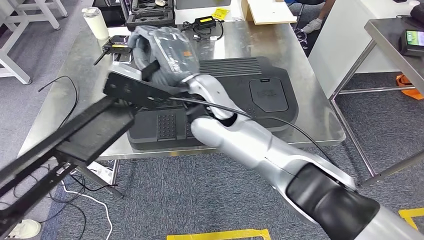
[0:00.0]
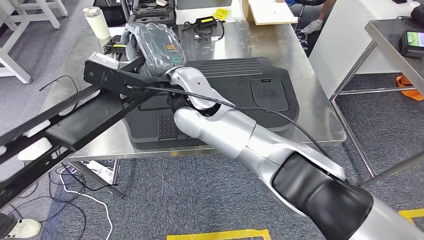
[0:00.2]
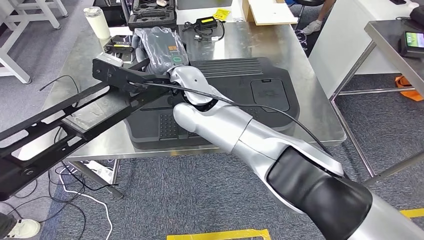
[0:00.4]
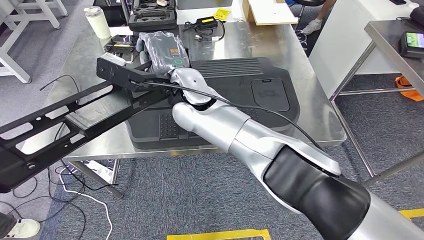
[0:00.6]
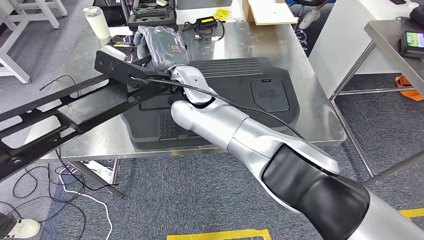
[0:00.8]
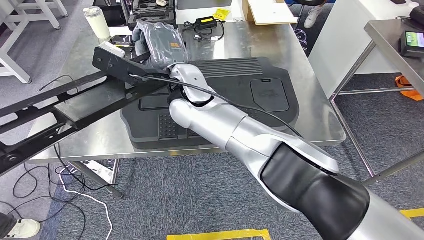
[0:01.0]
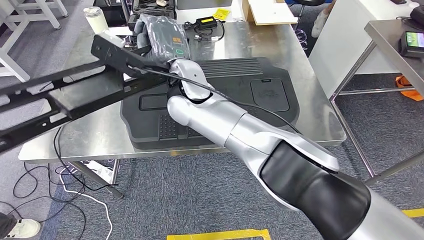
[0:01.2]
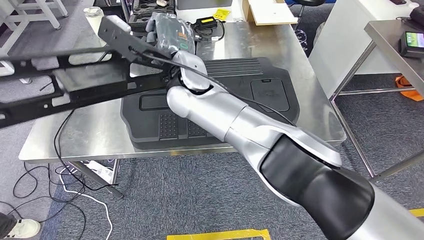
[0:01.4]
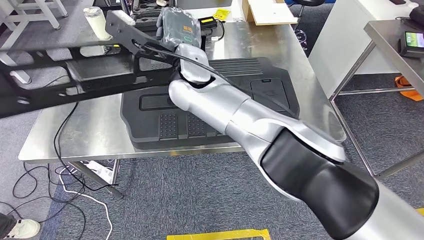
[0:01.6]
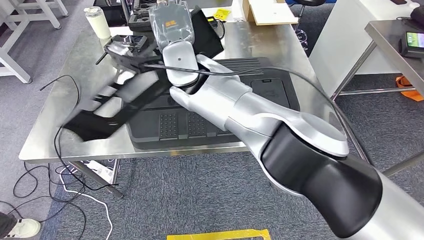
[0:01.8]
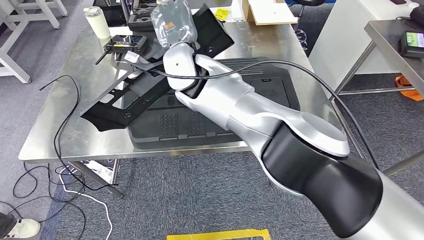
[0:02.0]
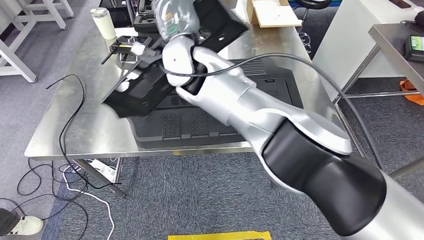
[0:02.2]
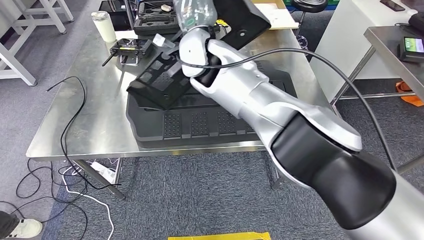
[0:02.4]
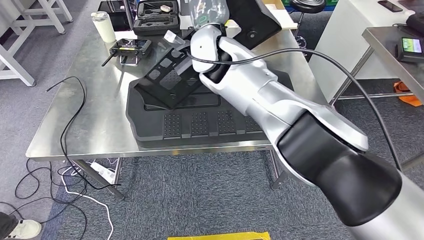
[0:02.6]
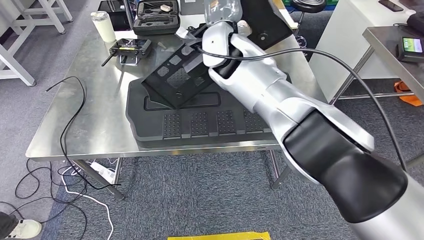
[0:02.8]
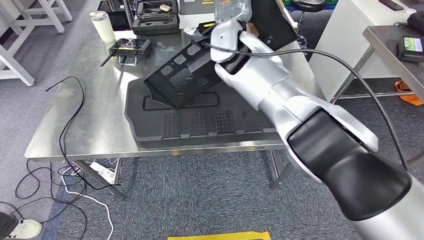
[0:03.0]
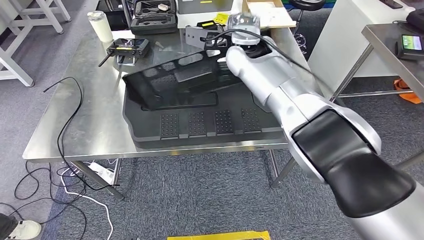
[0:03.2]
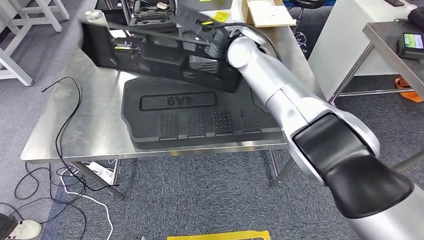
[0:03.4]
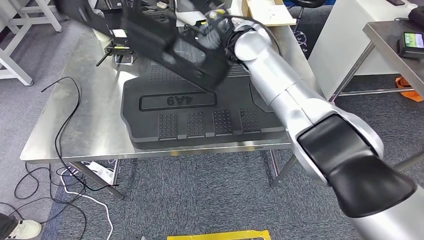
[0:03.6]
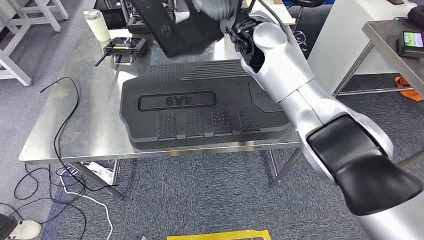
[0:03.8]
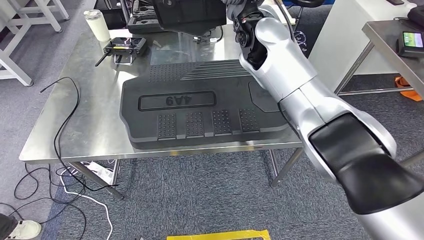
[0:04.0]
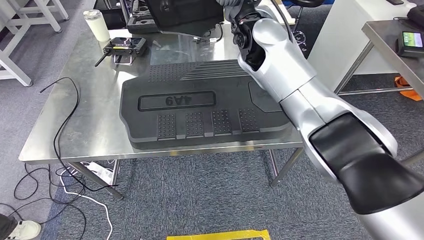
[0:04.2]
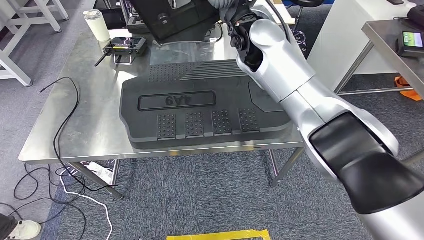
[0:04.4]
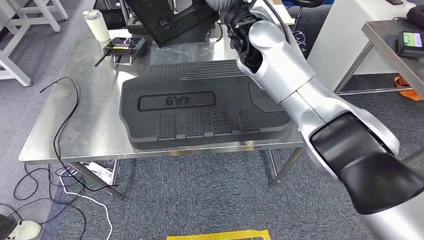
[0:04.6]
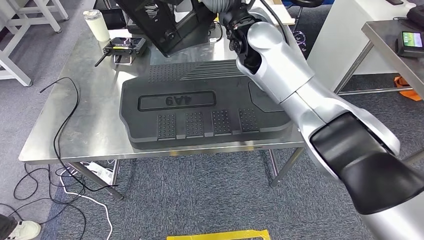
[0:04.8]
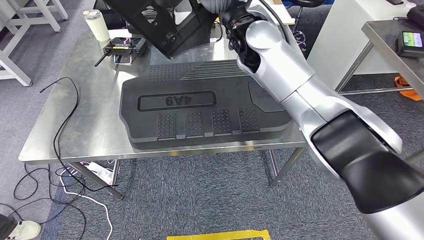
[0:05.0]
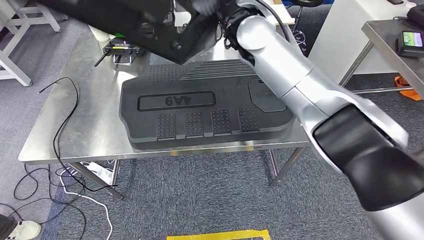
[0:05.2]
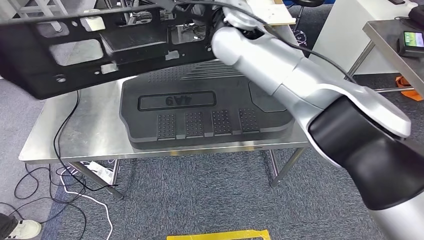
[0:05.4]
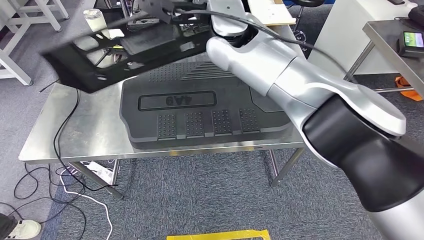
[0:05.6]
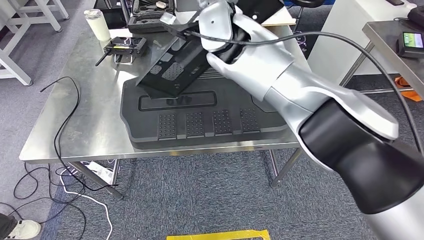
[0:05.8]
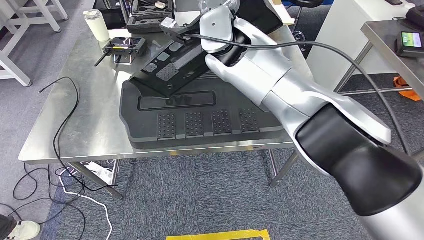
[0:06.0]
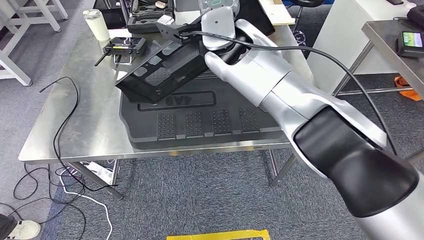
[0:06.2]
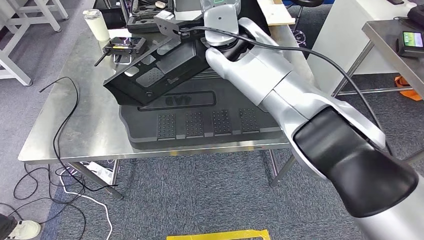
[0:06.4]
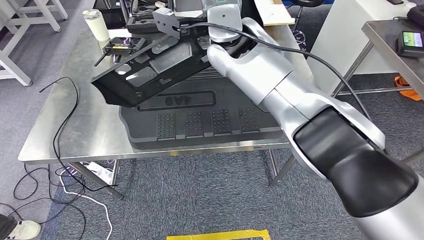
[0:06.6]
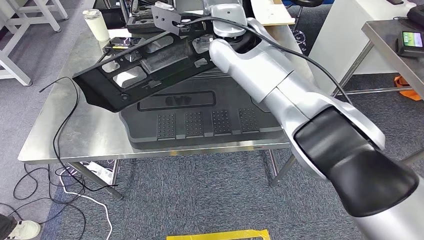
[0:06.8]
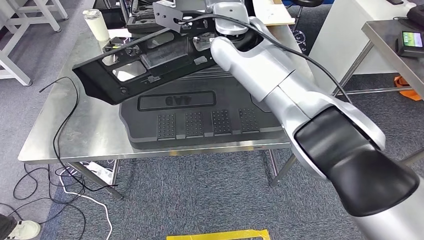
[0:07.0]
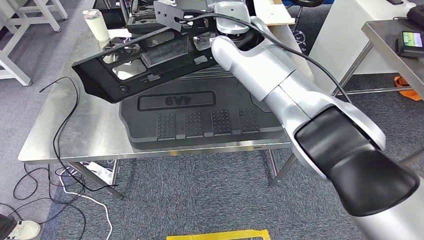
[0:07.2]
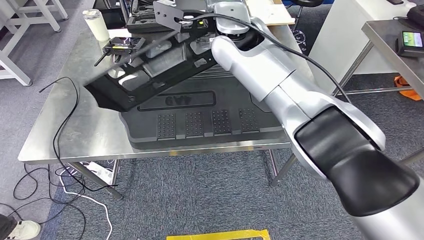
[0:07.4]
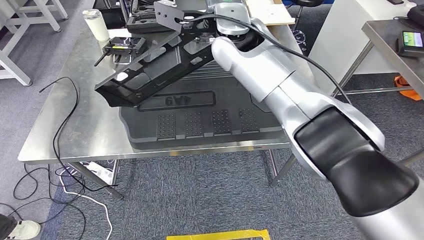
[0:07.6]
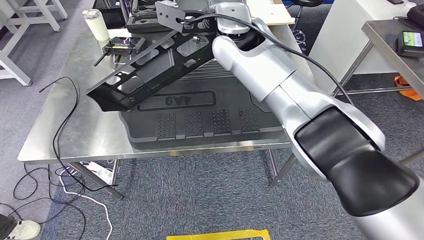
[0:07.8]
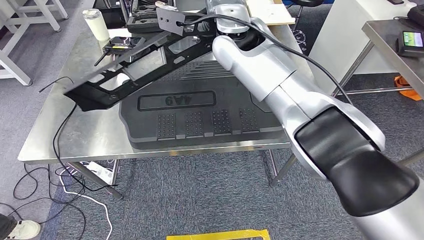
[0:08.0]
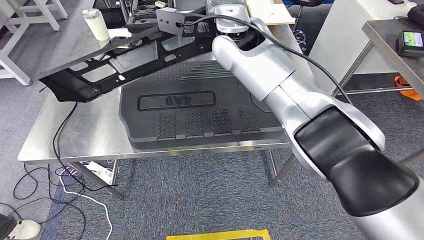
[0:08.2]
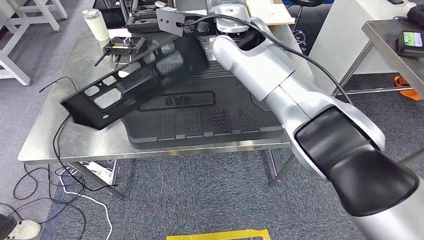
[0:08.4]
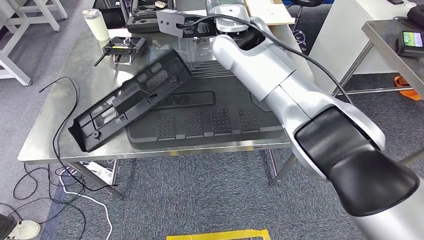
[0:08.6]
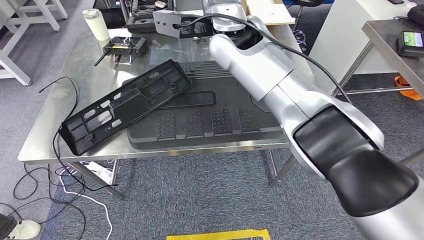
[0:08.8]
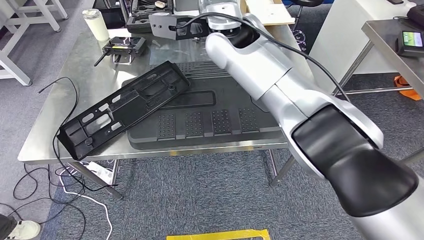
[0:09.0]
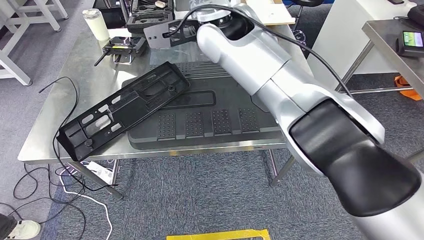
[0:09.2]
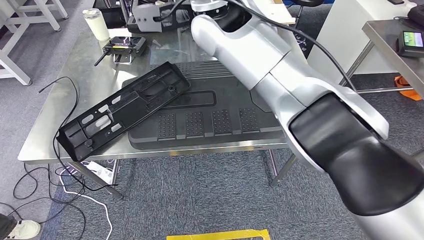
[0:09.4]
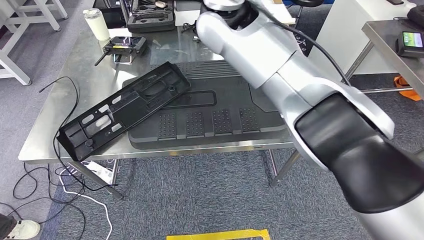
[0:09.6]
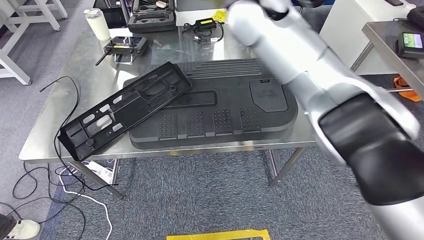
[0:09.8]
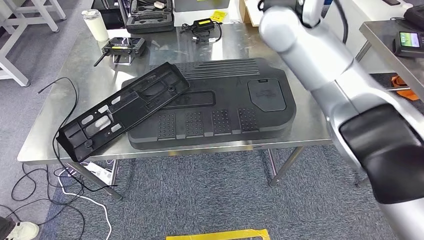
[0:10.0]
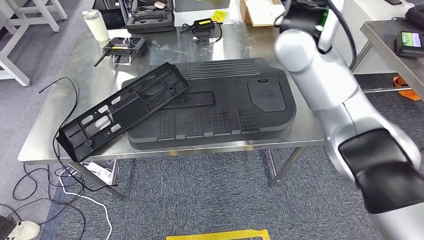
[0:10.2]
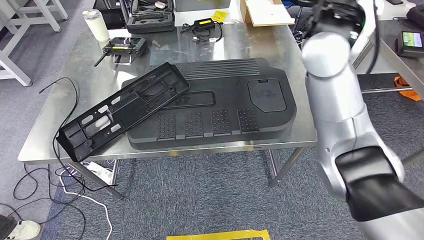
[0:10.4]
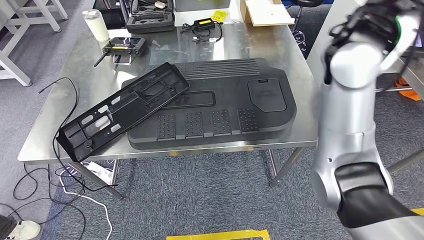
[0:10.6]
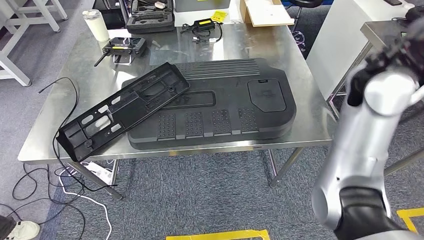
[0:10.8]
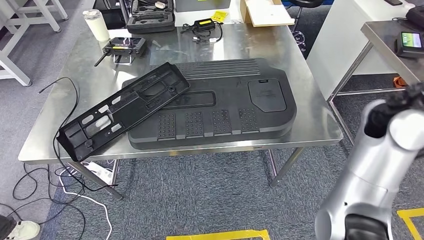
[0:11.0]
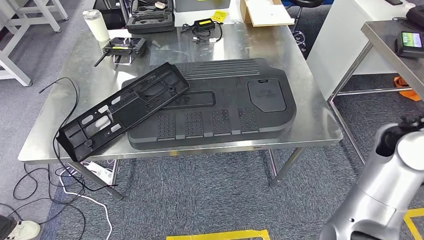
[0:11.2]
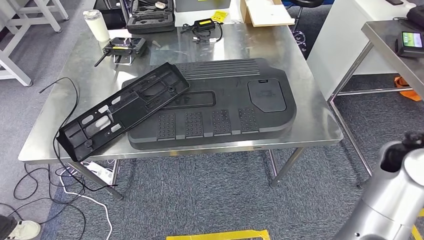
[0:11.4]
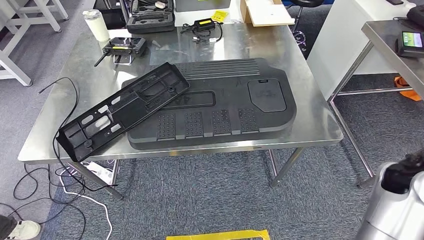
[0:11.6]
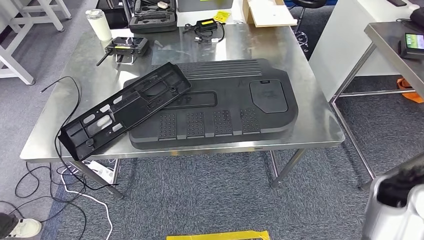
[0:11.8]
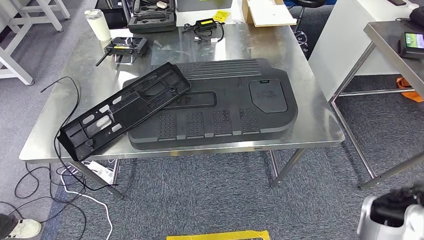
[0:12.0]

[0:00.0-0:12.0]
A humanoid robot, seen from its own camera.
0:04.4 to 0:06.0: The right hand goes roughly 5 cm to the left.
0:07.6 to 0:09.0: The hands stay close to where they were, moving slightly.

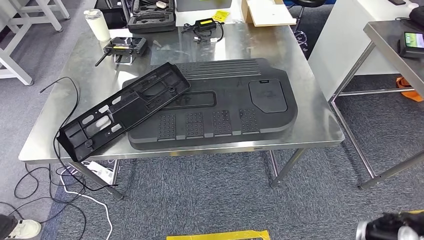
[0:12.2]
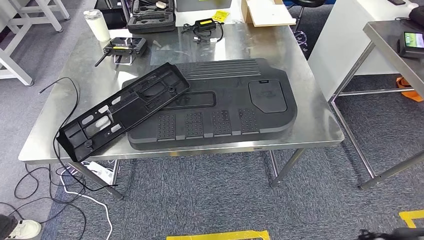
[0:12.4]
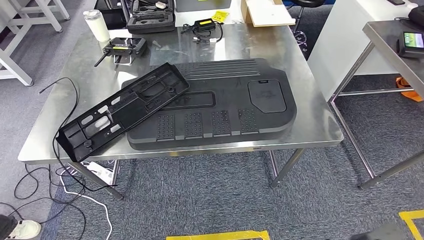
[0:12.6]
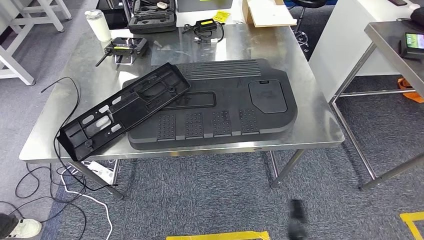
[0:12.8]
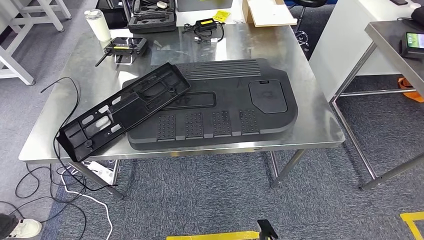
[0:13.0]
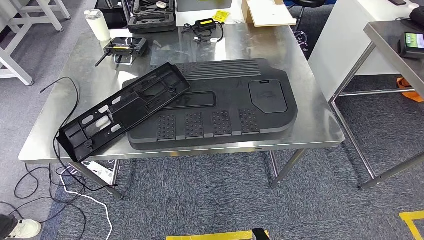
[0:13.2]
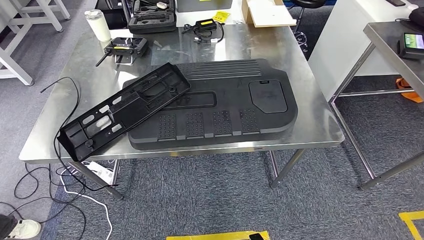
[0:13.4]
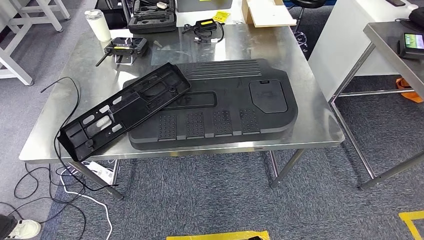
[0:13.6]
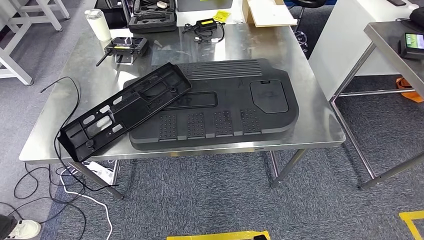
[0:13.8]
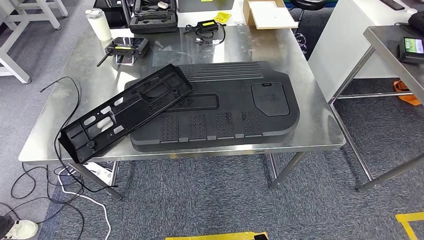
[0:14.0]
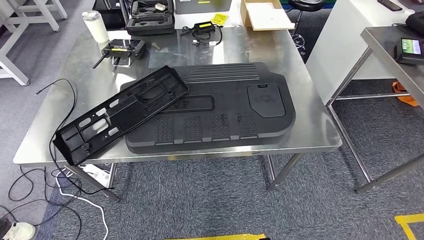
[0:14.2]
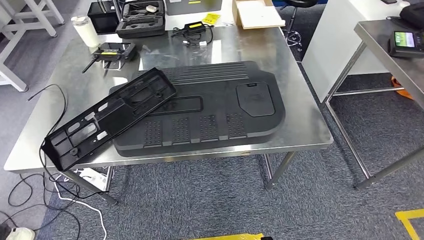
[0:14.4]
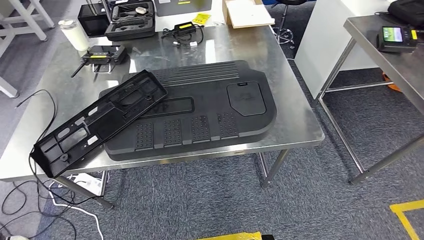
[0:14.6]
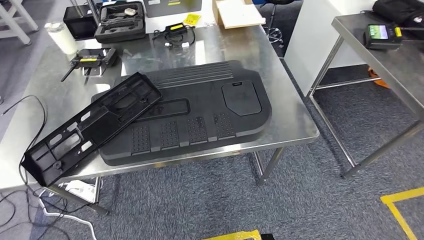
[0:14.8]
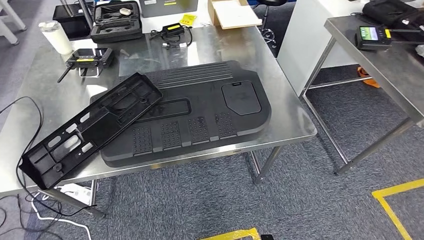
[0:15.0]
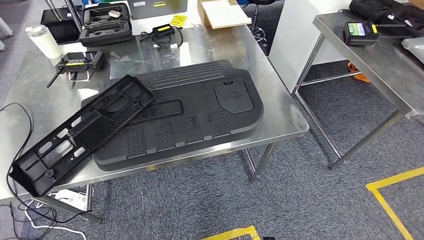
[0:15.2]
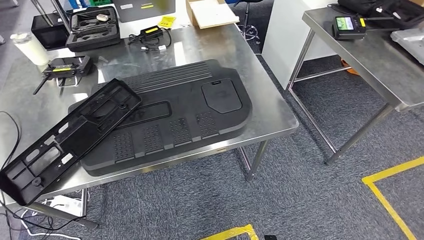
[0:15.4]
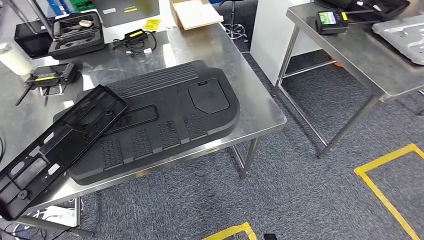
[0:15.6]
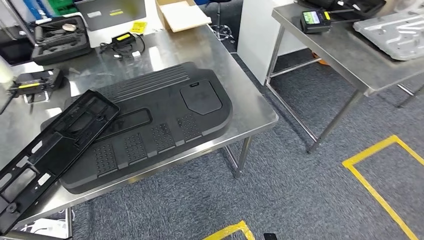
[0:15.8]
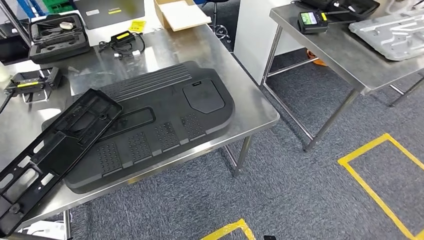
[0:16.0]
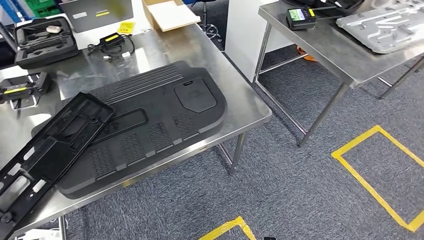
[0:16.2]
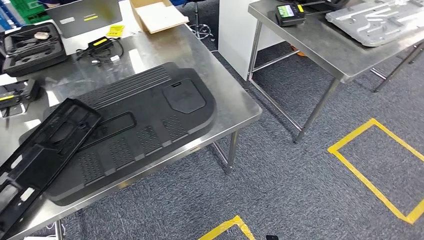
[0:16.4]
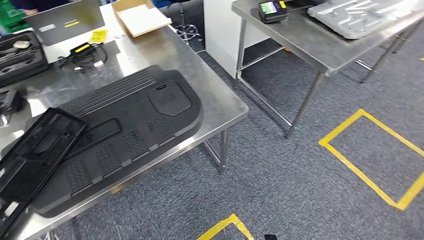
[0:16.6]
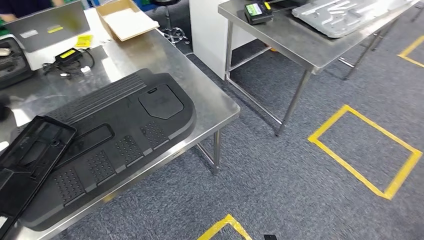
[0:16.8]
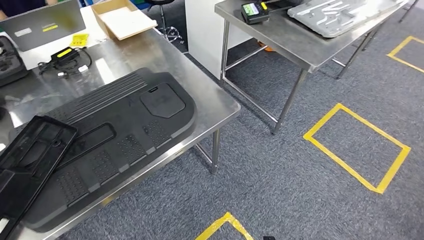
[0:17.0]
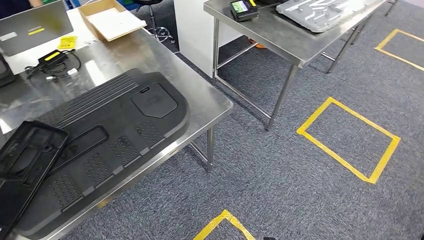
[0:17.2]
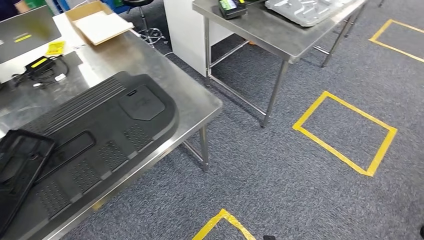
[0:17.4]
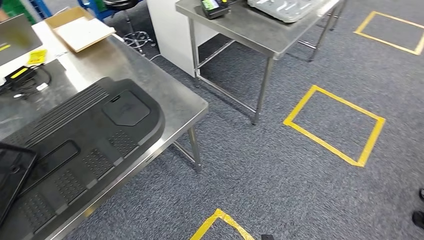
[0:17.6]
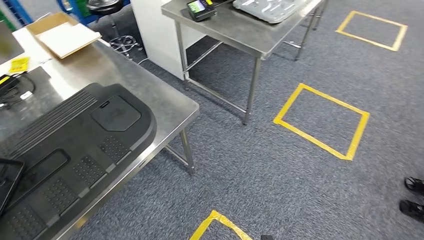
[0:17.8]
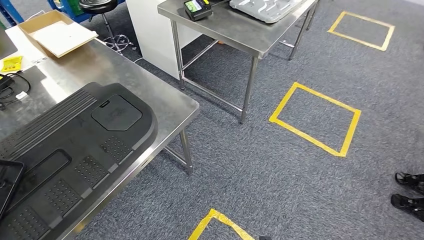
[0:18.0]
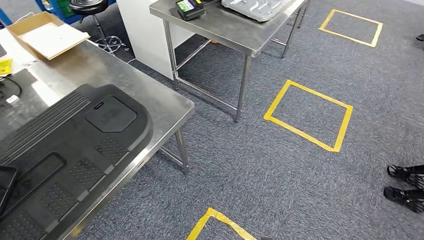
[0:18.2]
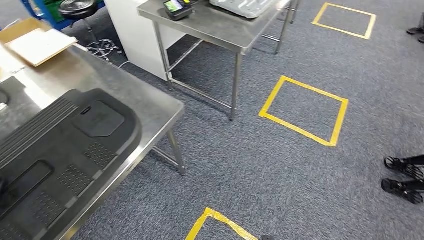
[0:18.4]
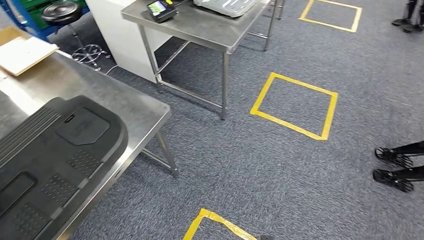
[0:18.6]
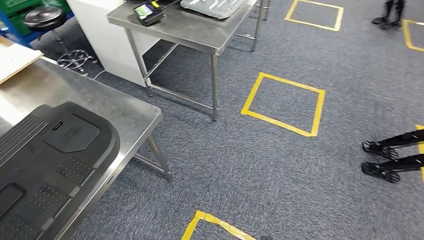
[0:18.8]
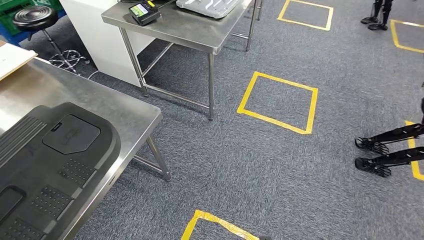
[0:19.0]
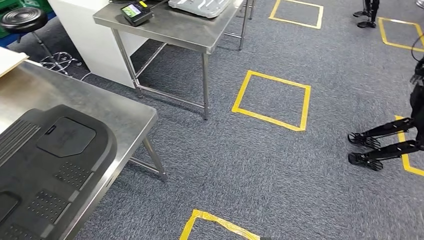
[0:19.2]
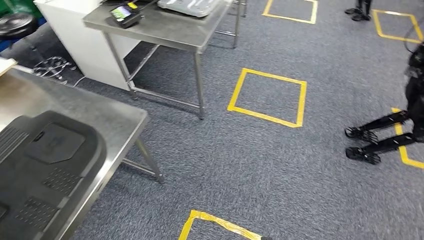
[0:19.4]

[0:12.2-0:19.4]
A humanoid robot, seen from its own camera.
0:12.2 to 0:13.6: The right hand is displaced to the left and downward by roughly 35 cm.
